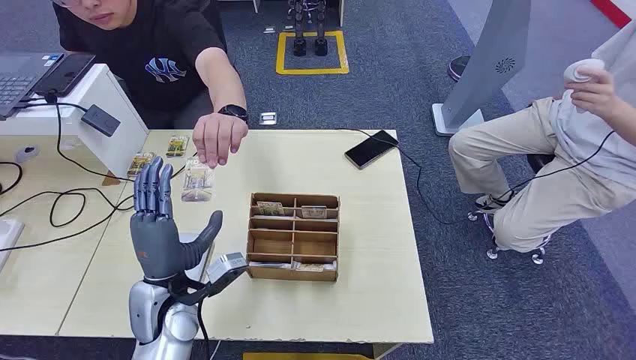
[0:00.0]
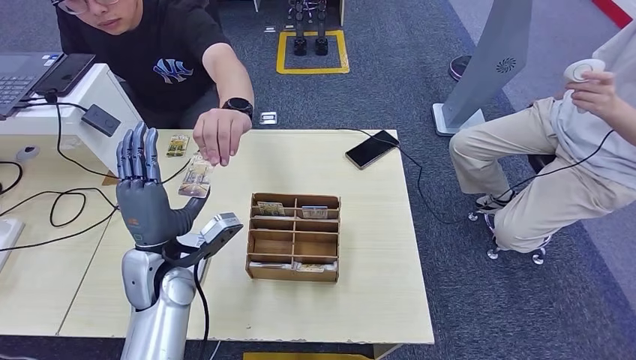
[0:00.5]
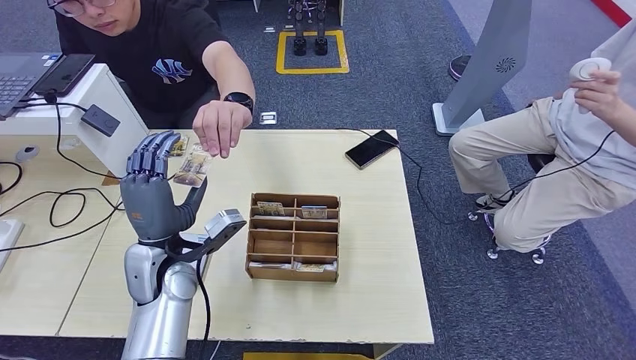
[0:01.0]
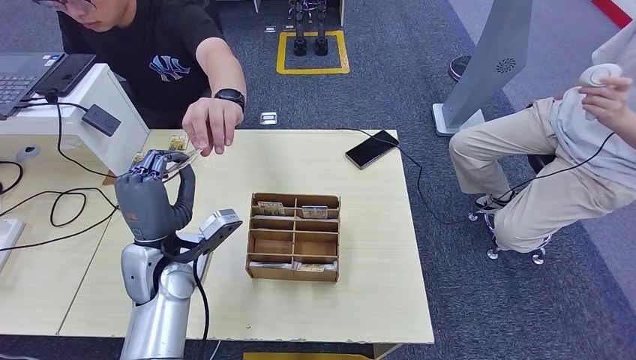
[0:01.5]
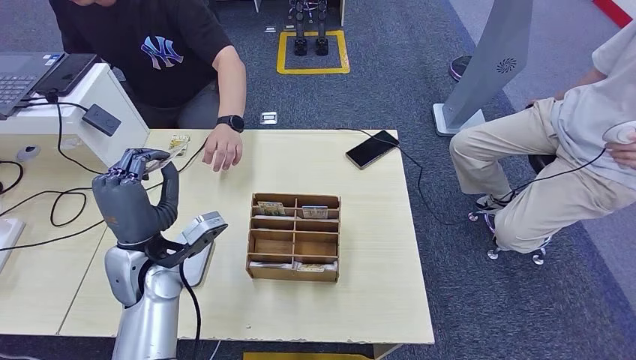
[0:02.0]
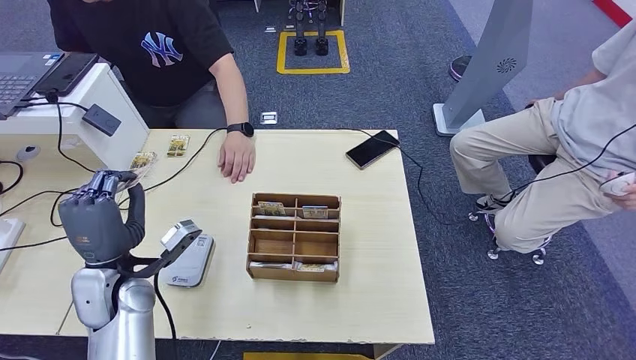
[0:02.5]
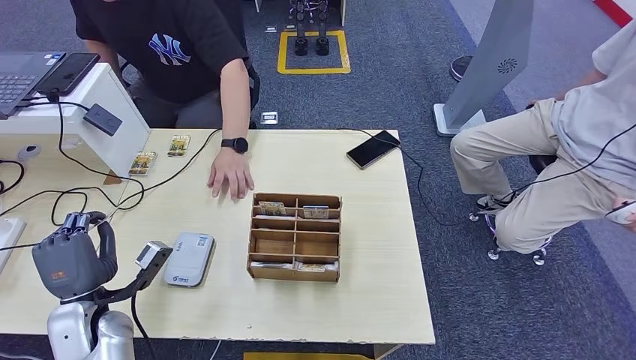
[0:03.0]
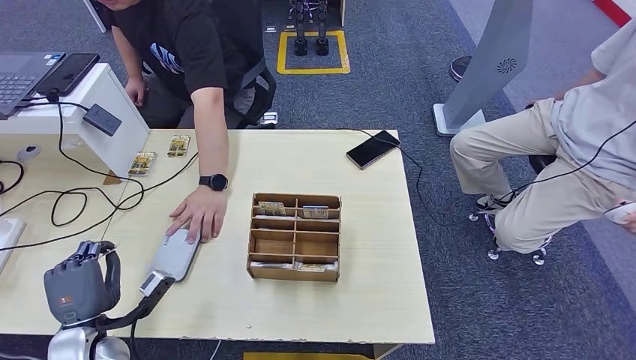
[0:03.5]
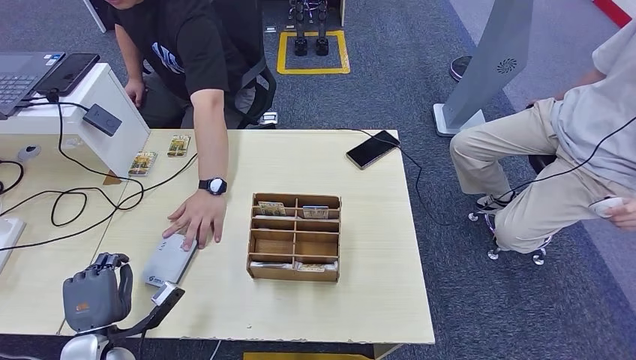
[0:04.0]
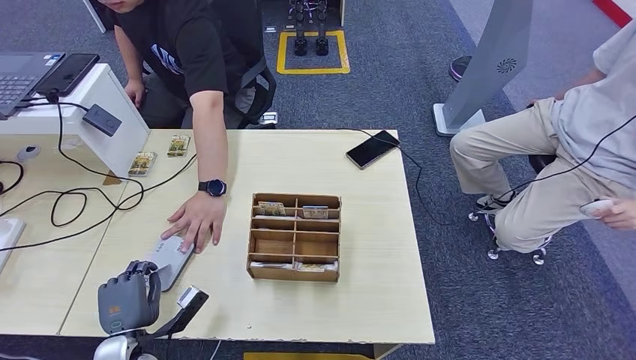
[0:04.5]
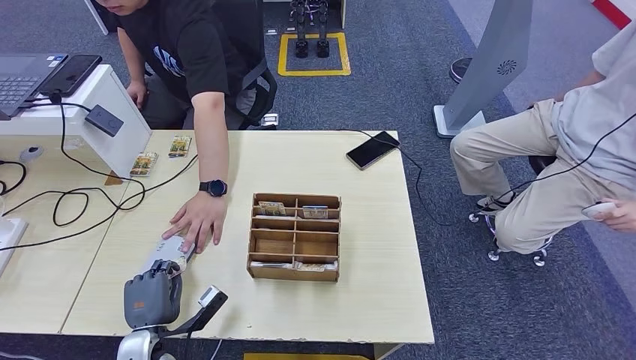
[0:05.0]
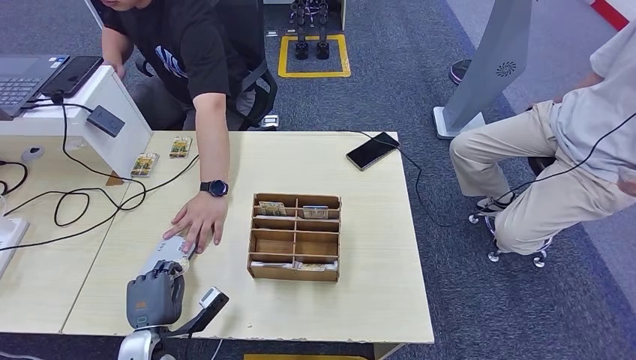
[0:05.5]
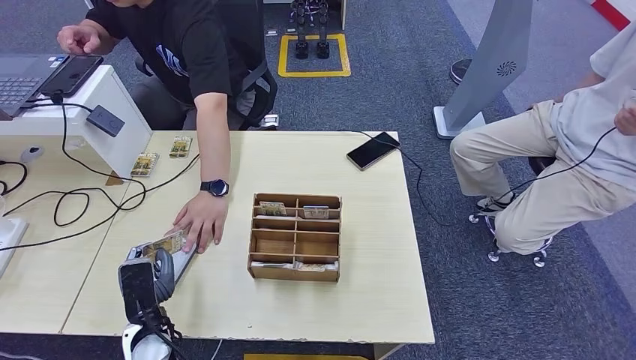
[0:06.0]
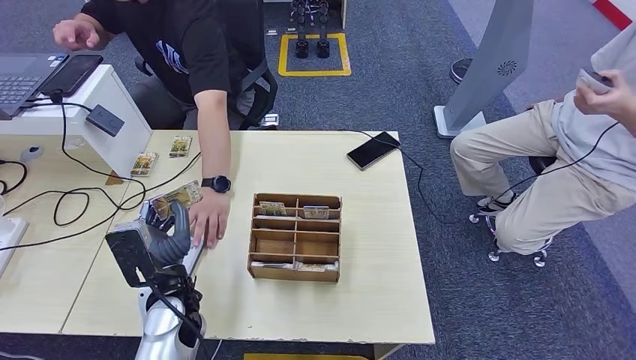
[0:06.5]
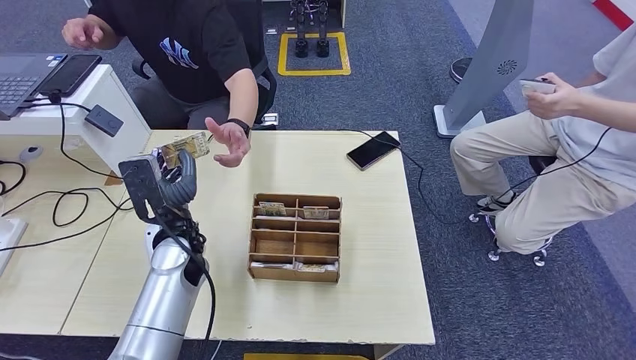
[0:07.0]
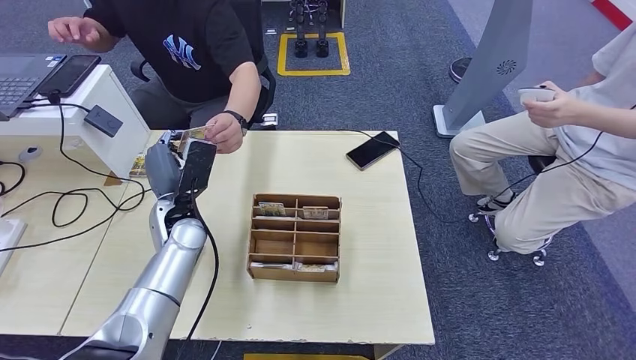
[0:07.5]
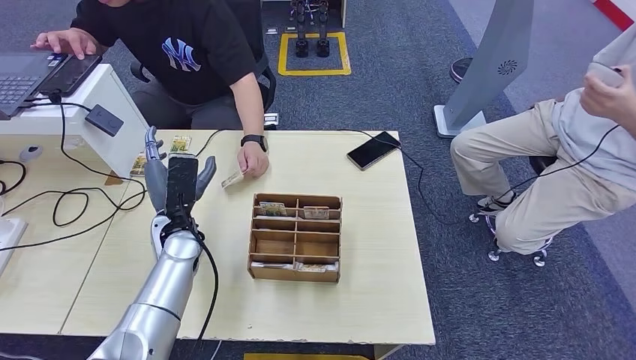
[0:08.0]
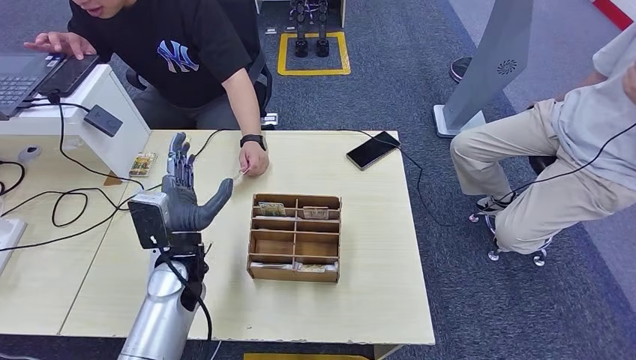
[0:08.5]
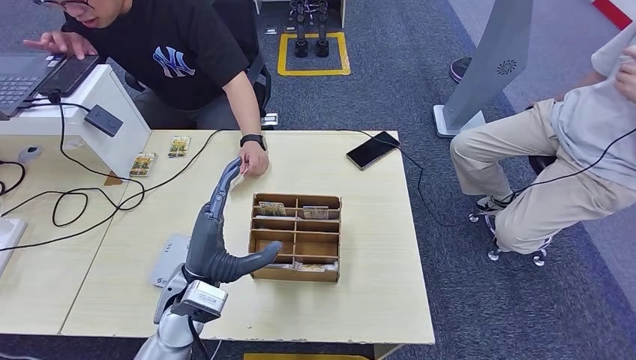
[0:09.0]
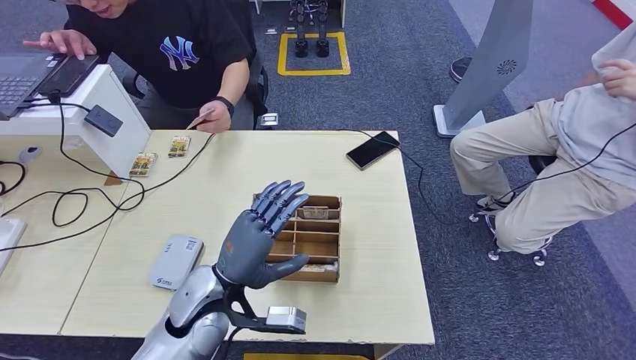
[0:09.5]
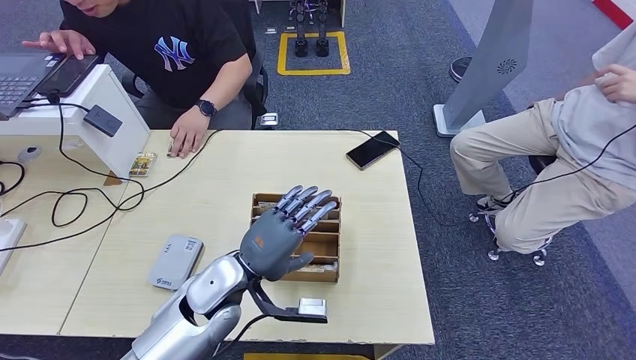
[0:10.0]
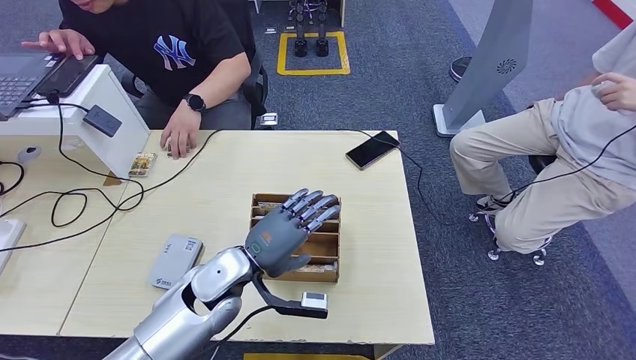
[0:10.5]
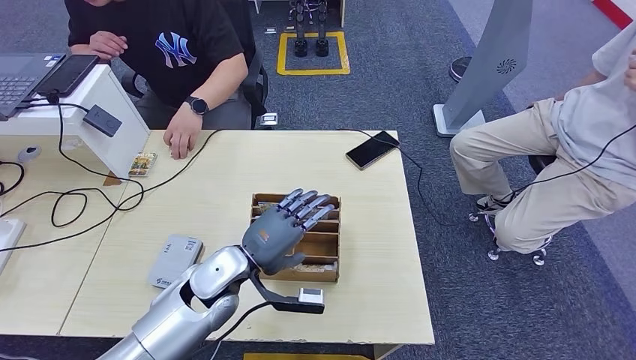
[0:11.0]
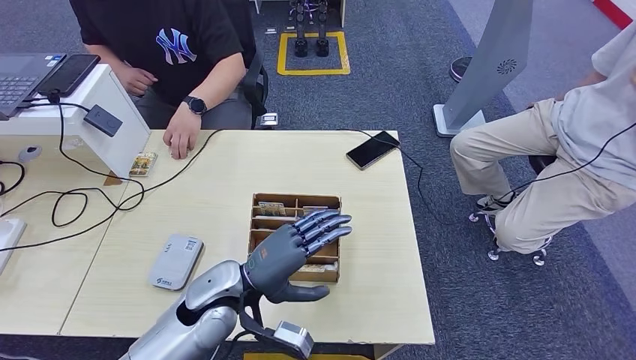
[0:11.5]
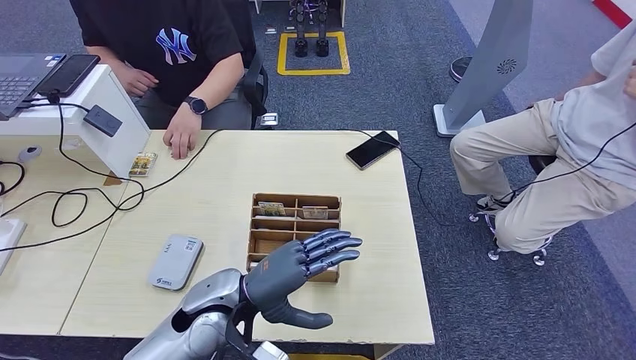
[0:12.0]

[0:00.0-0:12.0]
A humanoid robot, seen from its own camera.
Step, 0:00.0 to 0:02.5: Take the ID card from the person's hand.
Step, 0:03.0 to 0:04.5: Place the ID card on the card reader.
Step, 0:05.0 to 0:07.5: Hand the ID card to the person.
0:02.0 to 0:04.0: The left hand heads downward, to the left and backward, covering approximately 20 cm.
0:04.0 to 0:06.0: The left hand heads to the right, covering approximately 10 cm.
0:06.0 to 0:08.0: The left hand heads forward and upward, covering roughly 20 cm.
0:08.0 to 0:10.0: The left hand heads backward and to the right, covering about 15 cm.

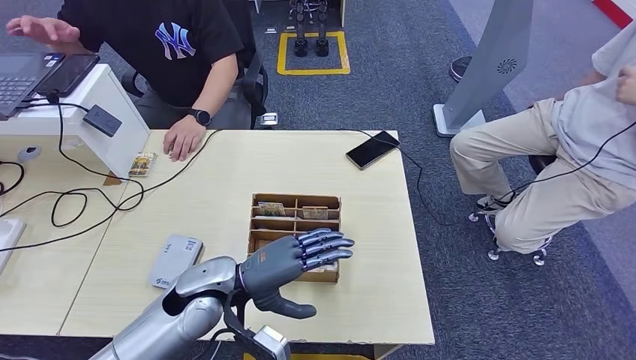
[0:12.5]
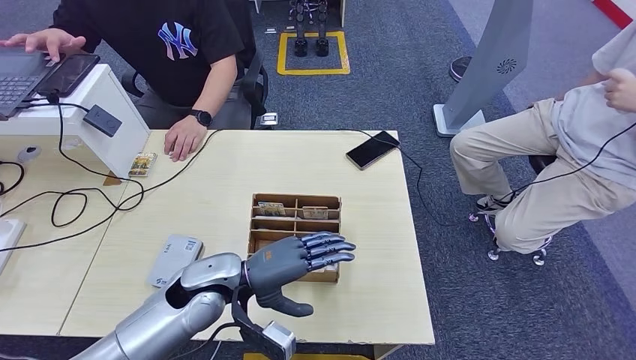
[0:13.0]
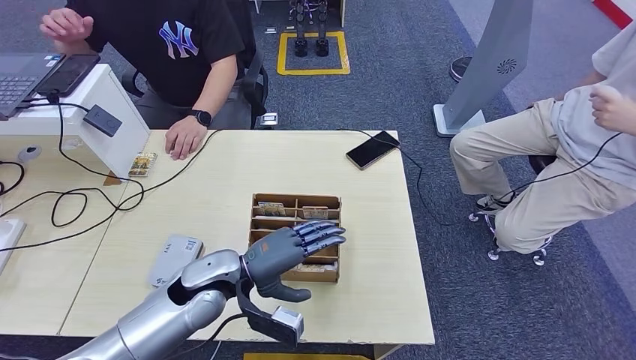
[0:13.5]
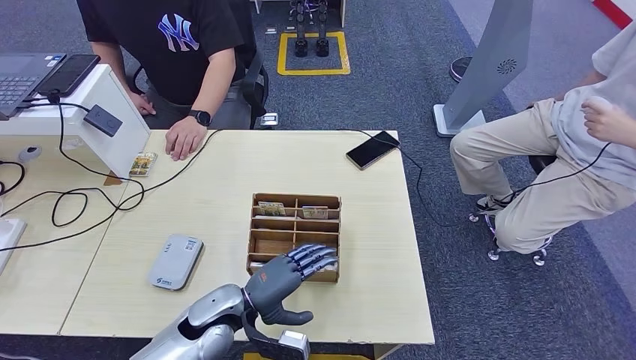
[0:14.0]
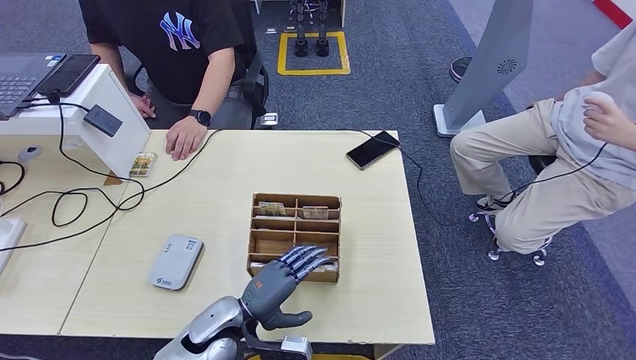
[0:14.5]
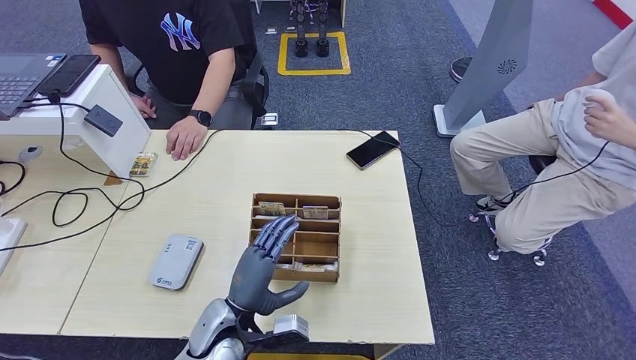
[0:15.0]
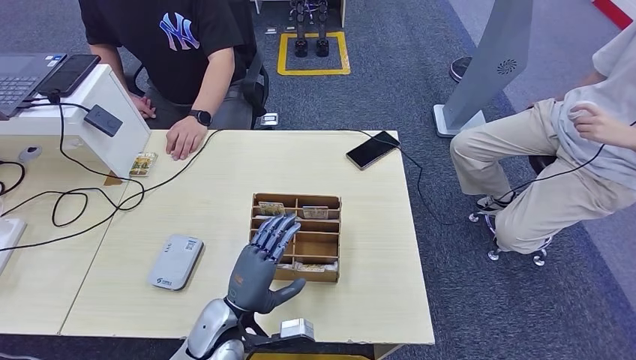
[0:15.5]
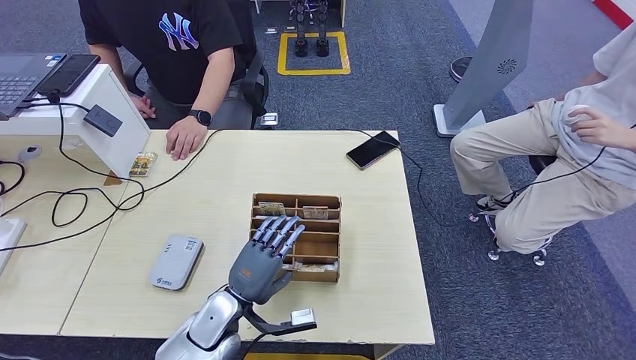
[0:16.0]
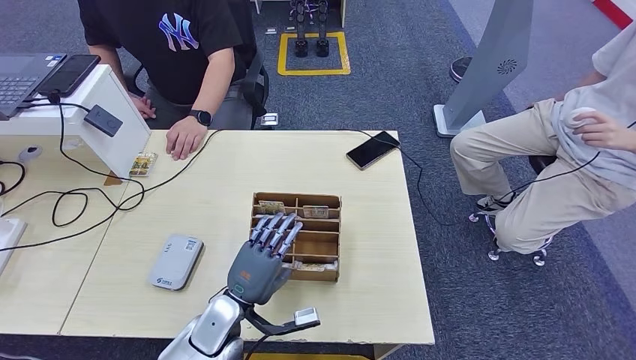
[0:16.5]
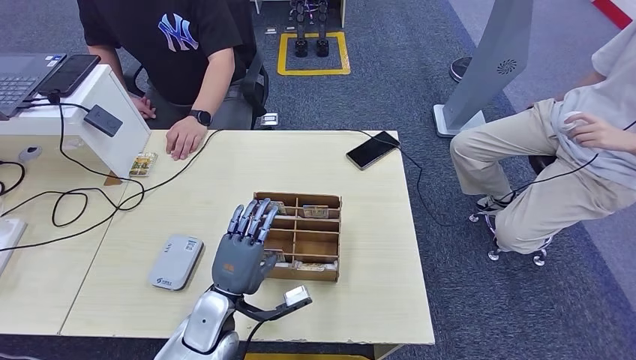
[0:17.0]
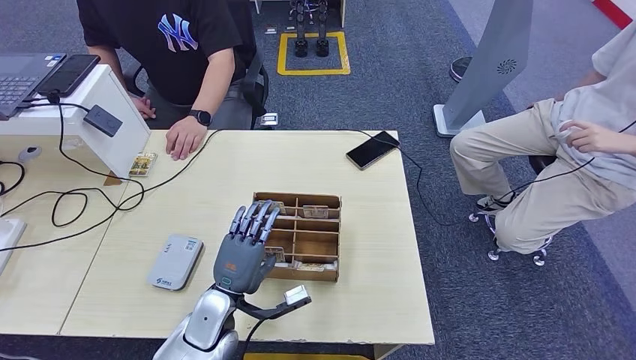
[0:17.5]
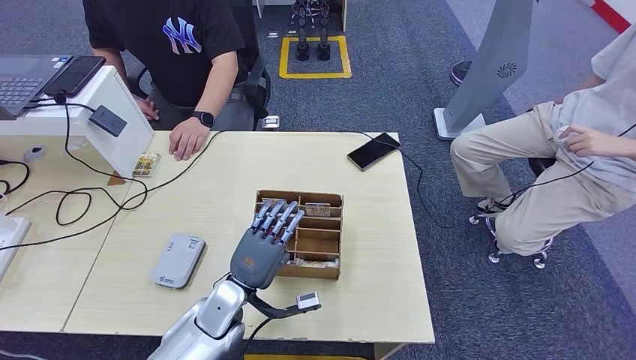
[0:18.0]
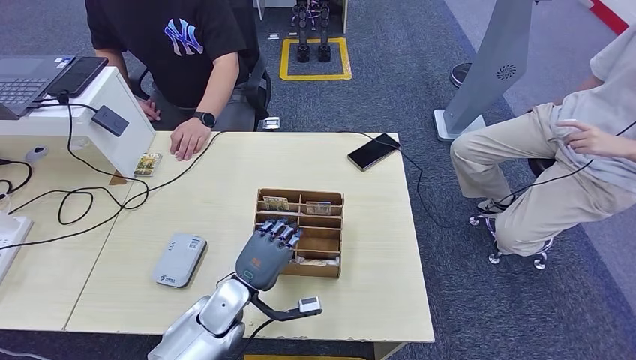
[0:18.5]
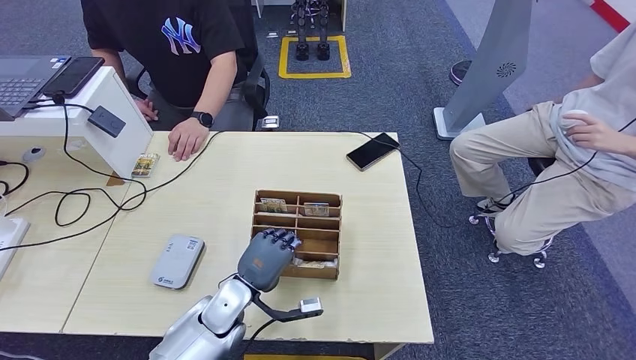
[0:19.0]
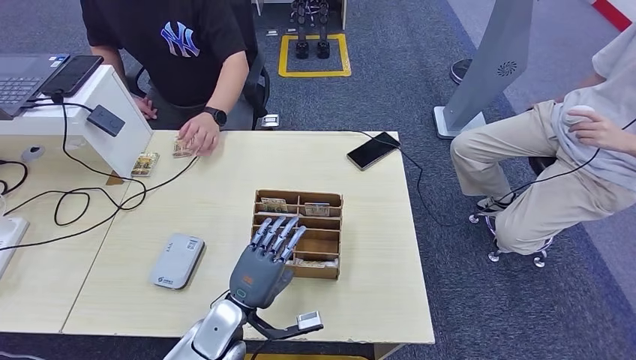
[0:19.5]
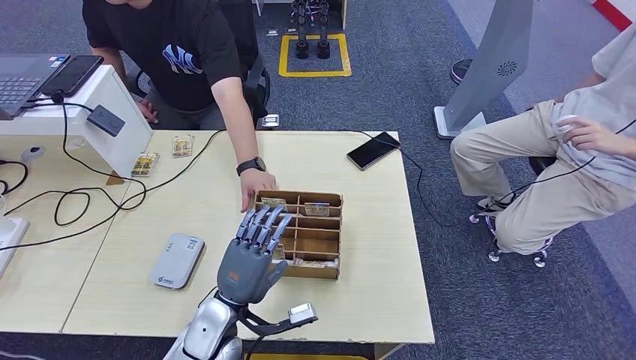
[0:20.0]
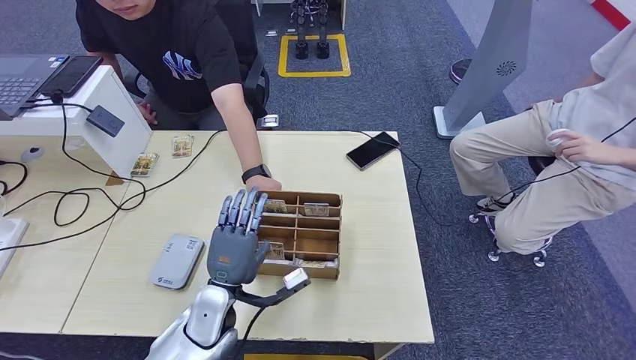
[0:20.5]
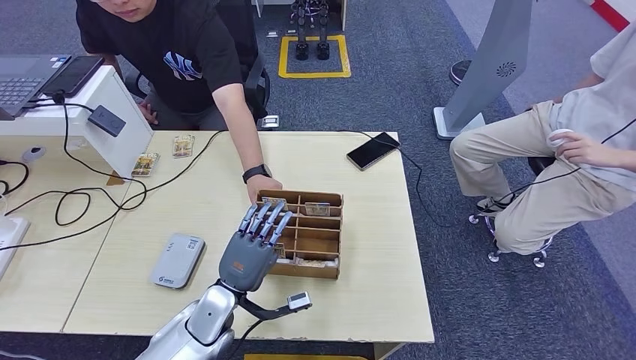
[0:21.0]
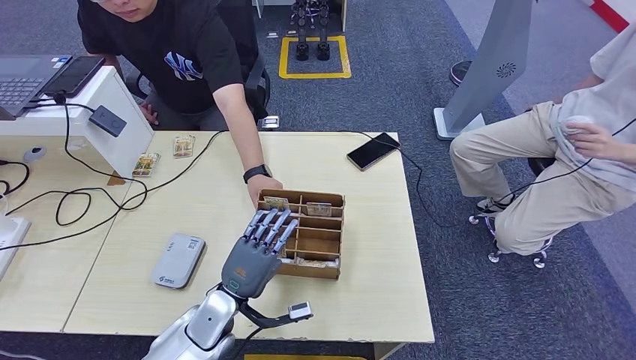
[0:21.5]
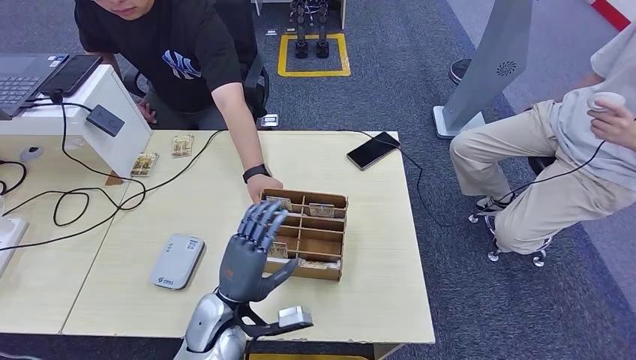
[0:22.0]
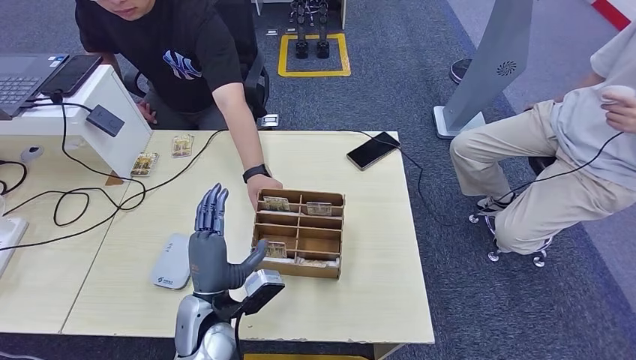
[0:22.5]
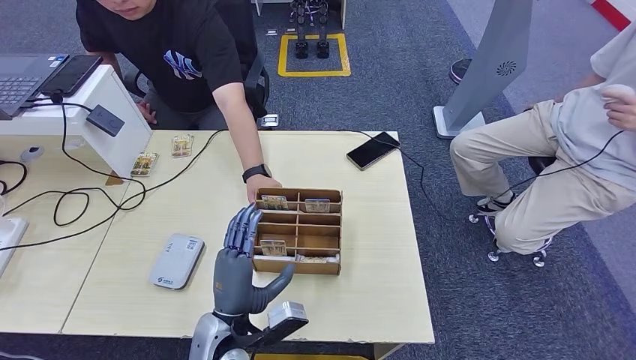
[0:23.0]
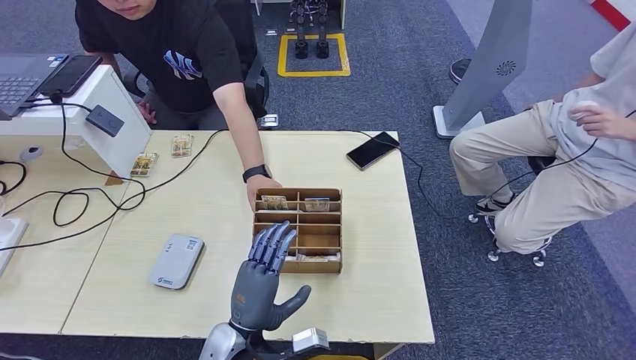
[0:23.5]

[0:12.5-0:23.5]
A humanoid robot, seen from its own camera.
0:12.5 to 0:14.5: The left hand shifts some 10 cm downward.
0:16.0 to 0:20.0: There are only small adjustments of the hands.
0:20.0 to 0:21.5: The hands make only small movements.
0:21.5 to 0:23.5: The left hand shifts some 10 cm backward and to the right.
